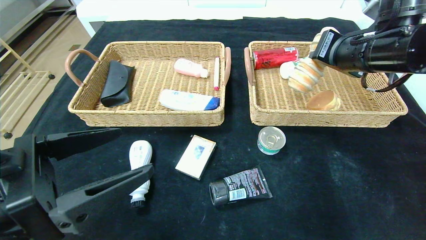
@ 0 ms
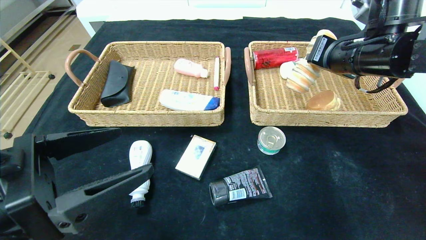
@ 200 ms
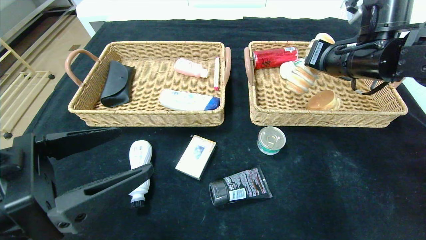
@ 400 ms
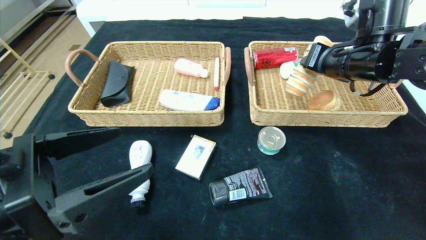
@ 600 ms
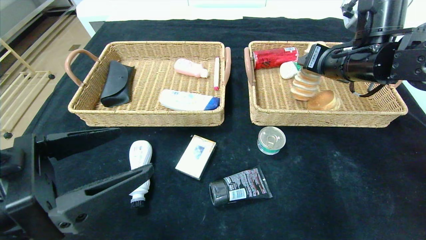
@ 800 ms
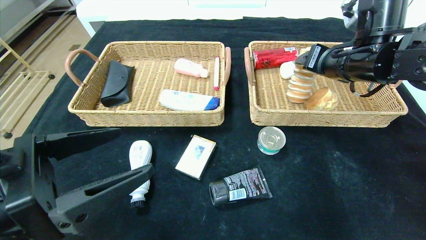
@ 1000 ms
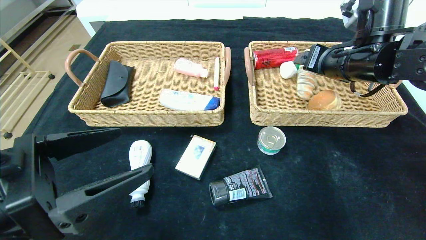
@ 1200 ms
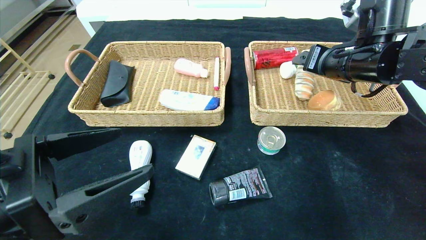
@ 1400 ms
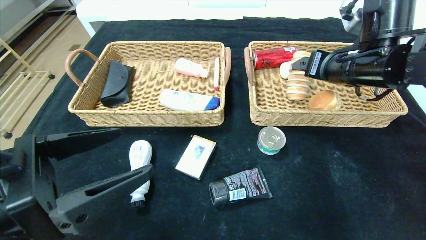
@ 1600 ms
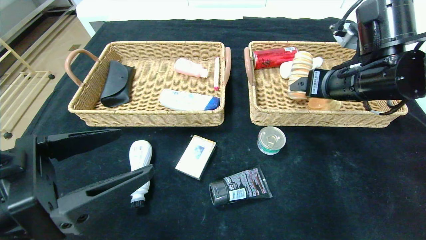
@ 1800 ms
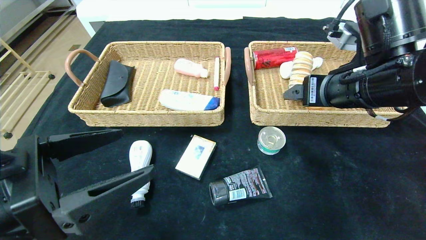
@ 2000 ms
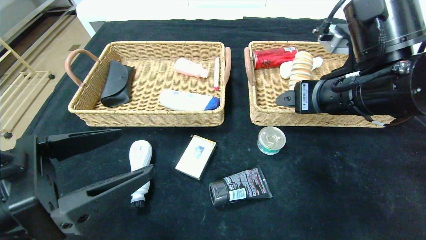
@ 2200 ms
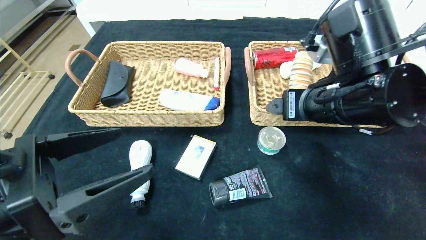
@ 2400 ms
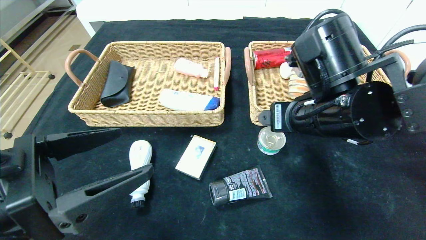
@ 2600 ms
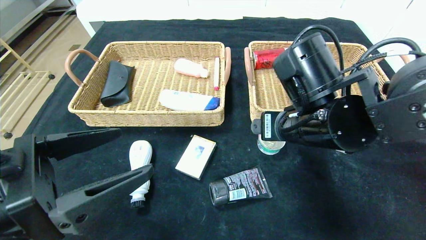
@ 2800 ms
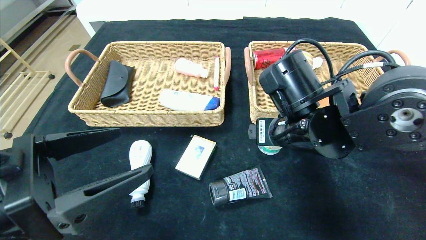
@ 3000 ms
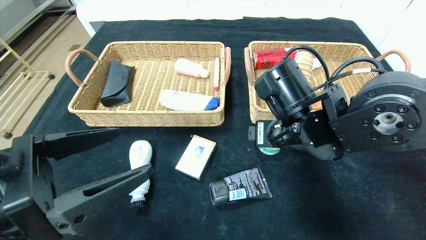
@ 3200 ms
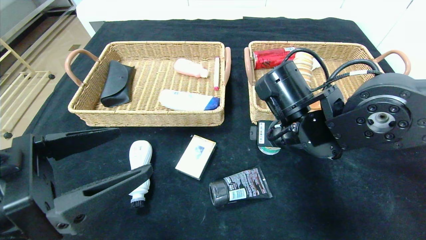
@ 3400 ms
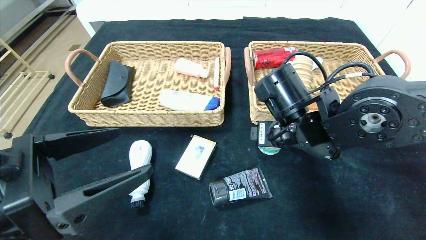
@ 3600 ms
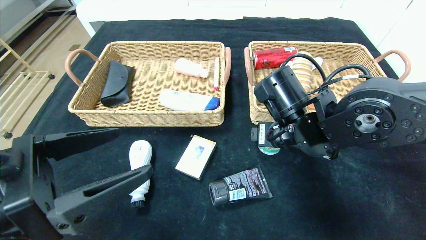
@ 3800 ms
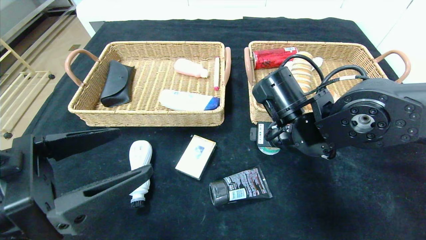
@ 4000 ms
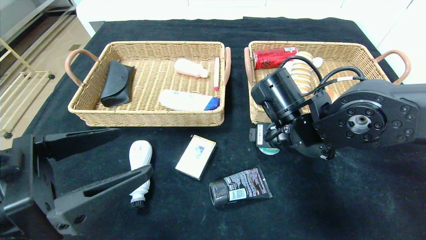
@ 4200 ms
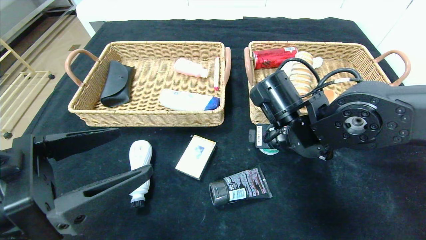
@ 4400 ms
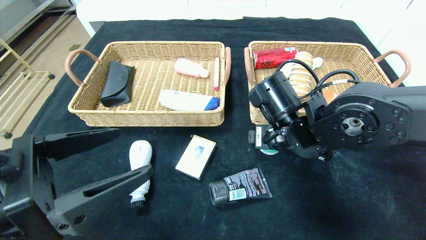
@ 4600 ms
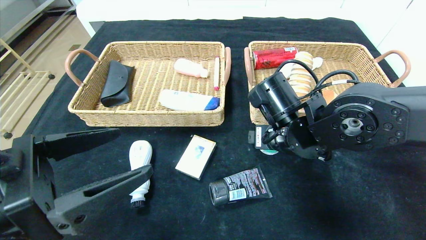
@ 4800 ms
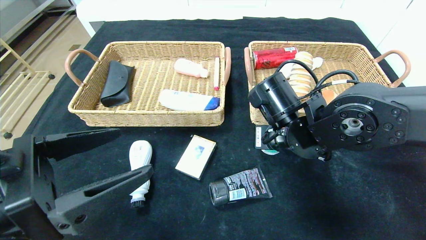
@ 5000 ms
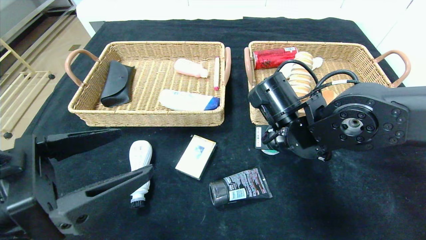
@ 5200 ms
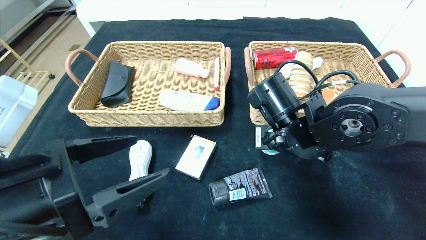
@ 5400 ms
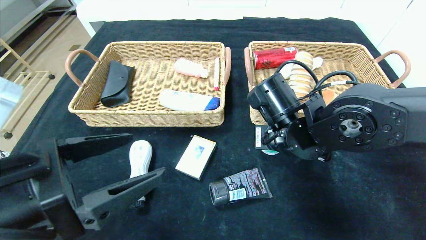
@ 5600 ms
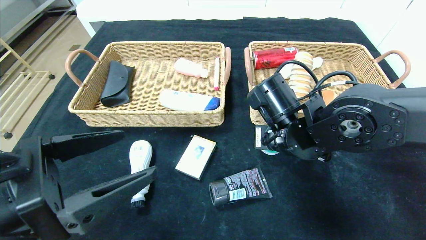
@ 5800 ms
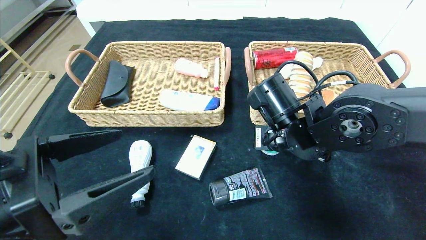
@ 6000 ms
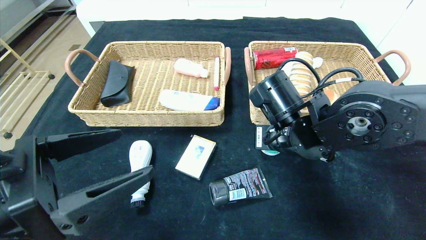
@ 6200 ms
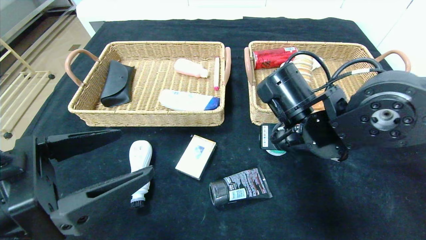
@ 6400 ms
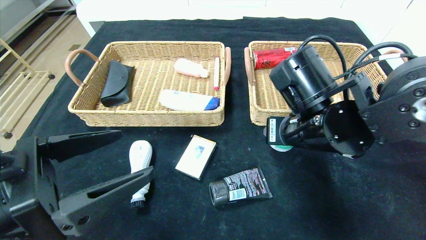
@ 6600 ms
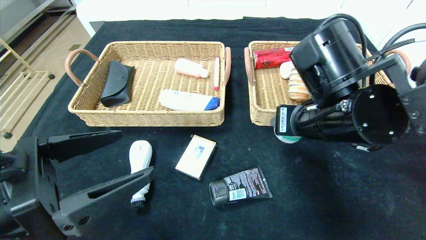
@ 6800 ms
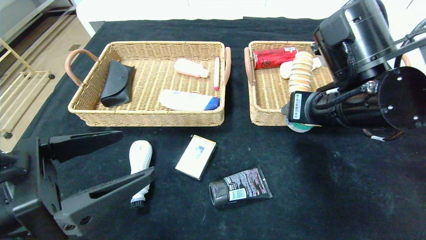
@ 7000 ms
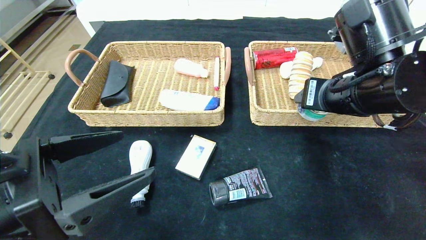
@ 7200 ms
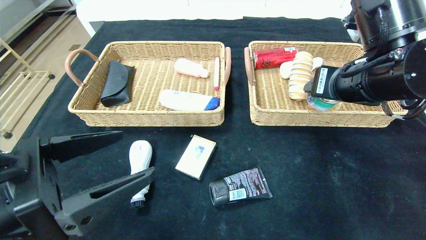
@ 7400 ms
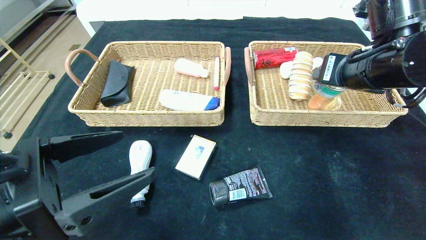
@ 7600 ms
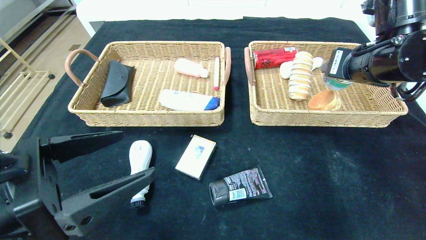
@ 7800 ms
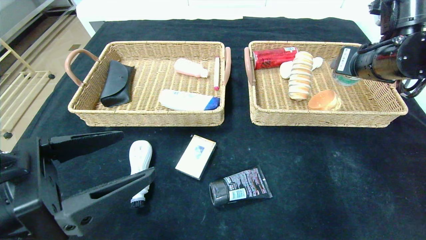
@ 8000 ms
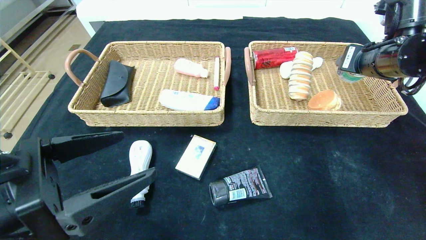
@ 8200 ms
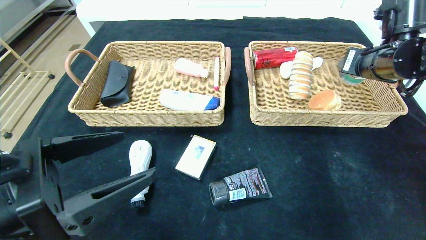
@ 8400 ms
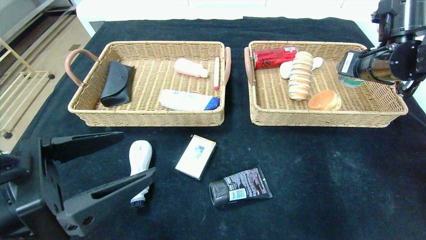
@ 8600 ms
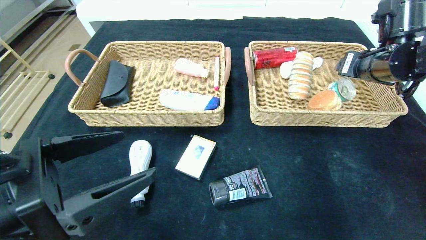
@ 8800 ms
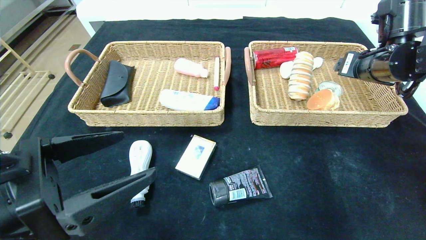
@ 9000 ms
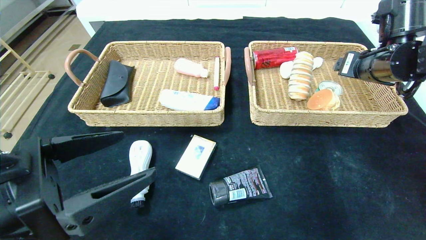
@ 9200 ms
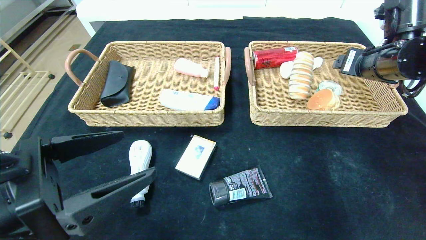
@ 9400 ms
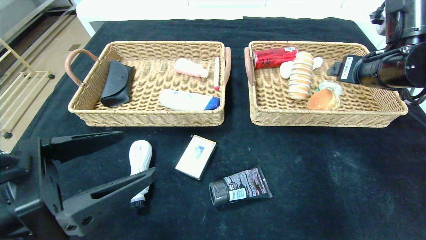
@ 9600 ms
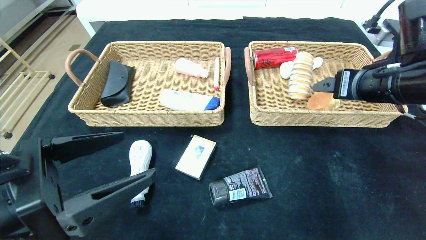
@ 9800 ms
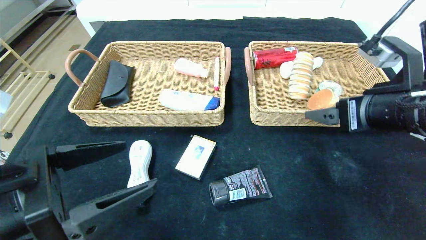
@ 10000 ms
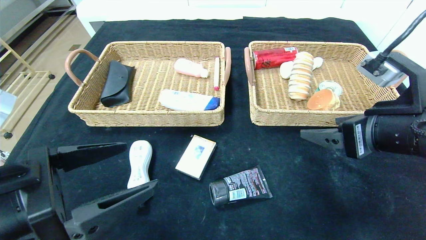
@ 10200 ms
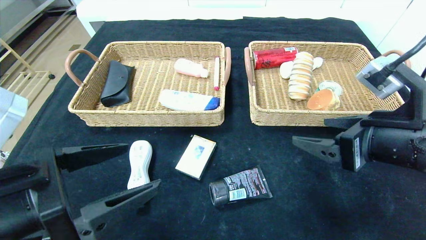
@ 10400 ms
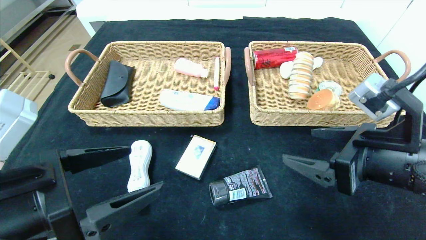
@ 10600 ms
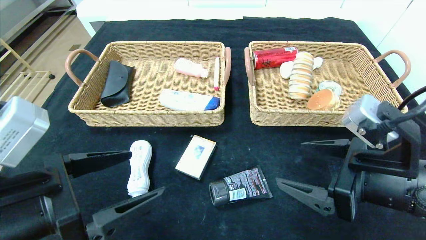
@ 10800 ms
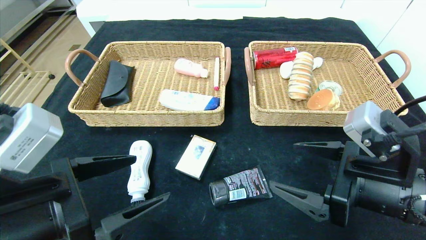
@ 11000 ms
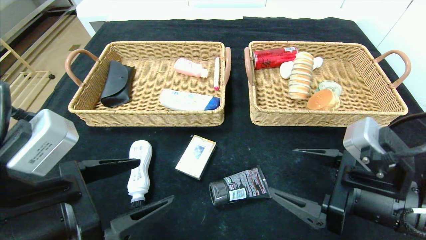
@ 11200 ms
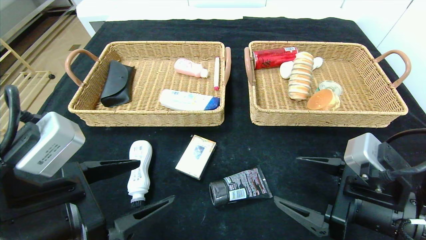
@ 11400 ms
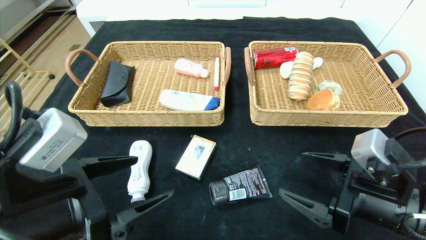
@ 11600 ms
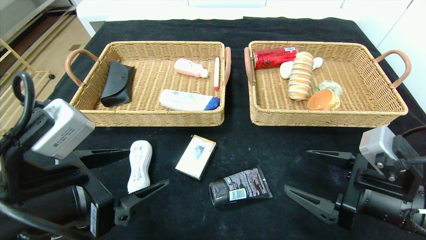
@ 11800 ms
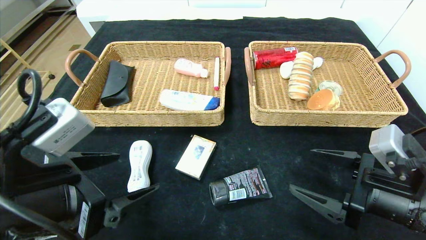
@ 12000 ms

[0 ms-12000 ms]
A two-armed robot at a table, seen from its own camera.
Step, 1400 ms to 9000 ms: Grasp the can and put it in the right basket.
0 ms to 1600 ms: The right gripper opens.
1600 ms to 3000 ms: The right gripper moves to the left, downward and backward, some 15 cm.
3000 ms to 4400 ms: There are only small adjustments of the grippers.
4400 ms to 6000 ms: The right gripper closes.
6000 ms to 7600 ms: The right gripper travels upward and to the right by about 15 cm.
7600 ms to 9000 ms: The right gripper heads to the right and forward, covering some 10 cm.
9000 ms to 10400 ms: The right gripper goes approximately 15 cm backward.
10400 ms to 12000 ms: The right gripper moves downward, roughly 10 cm.

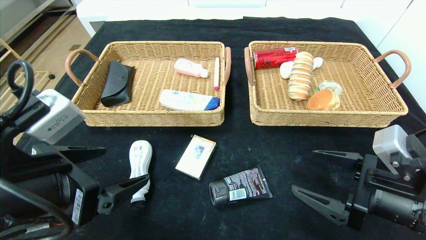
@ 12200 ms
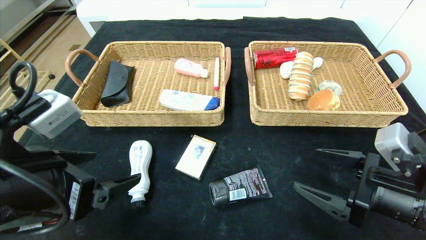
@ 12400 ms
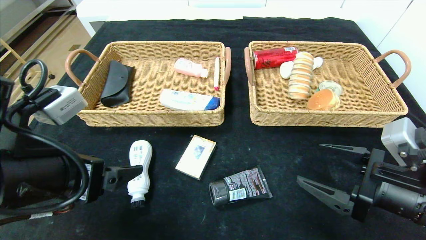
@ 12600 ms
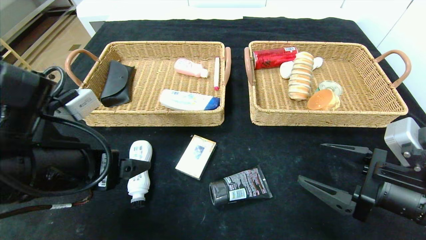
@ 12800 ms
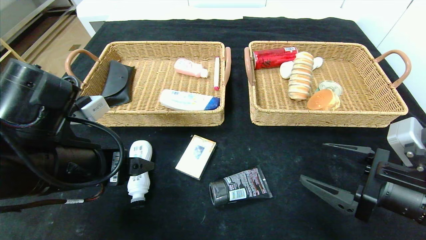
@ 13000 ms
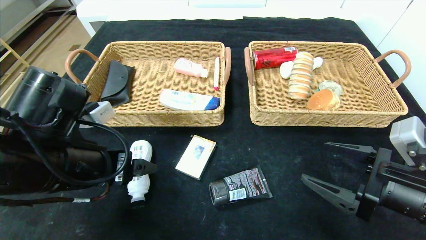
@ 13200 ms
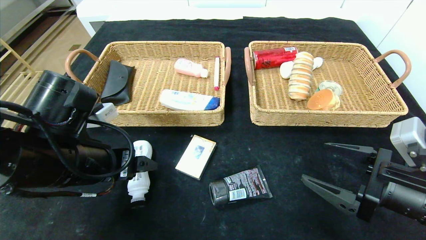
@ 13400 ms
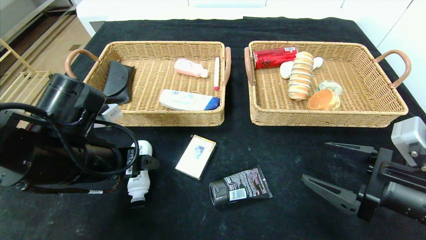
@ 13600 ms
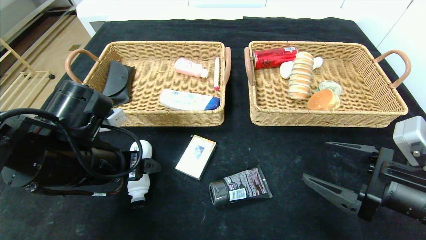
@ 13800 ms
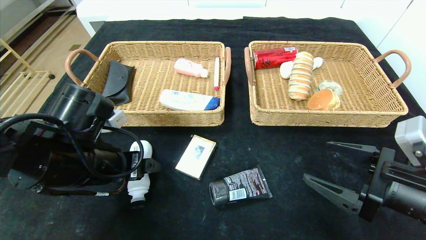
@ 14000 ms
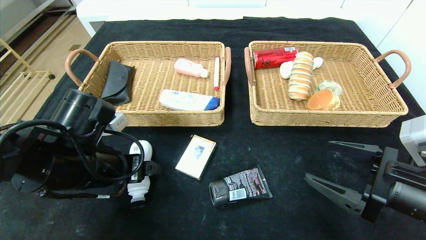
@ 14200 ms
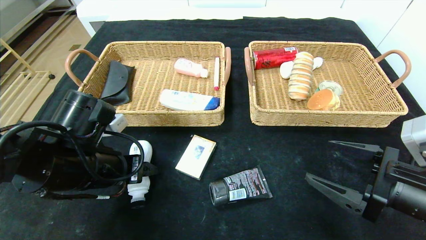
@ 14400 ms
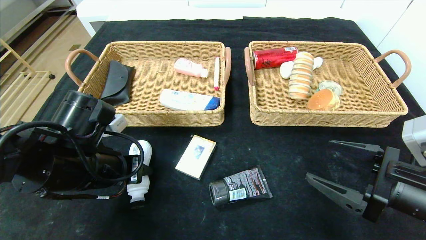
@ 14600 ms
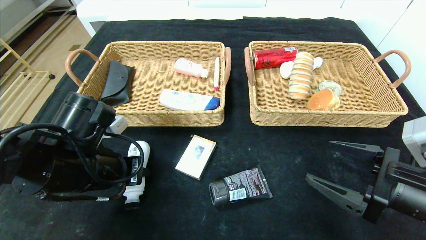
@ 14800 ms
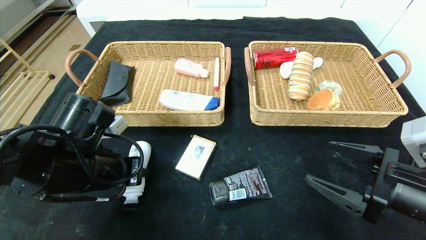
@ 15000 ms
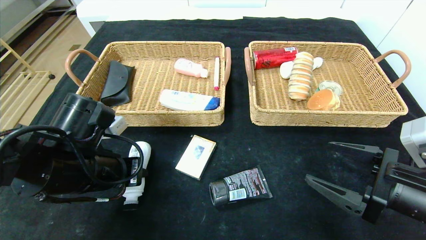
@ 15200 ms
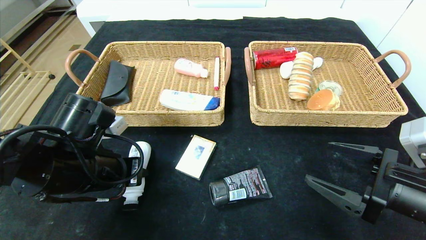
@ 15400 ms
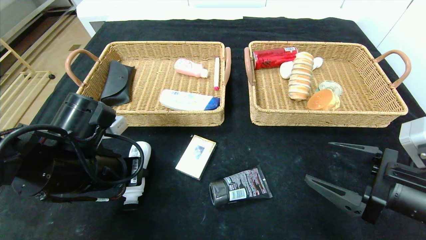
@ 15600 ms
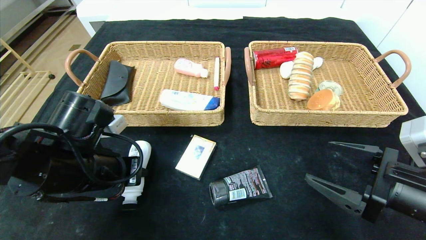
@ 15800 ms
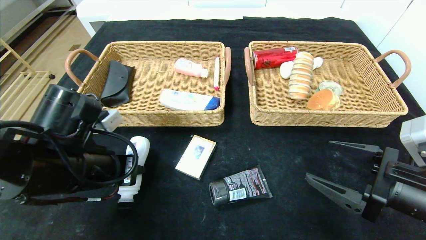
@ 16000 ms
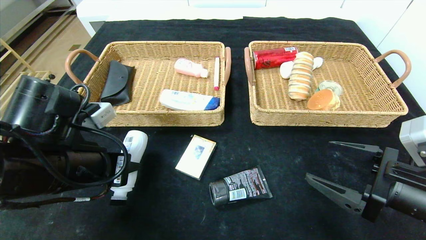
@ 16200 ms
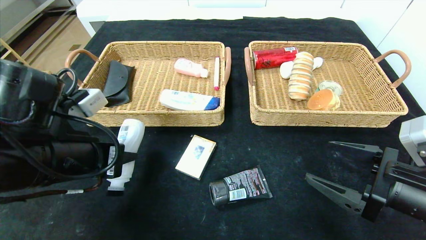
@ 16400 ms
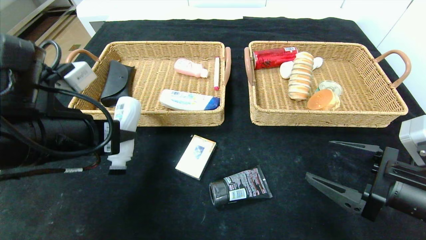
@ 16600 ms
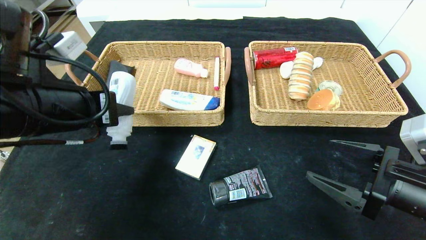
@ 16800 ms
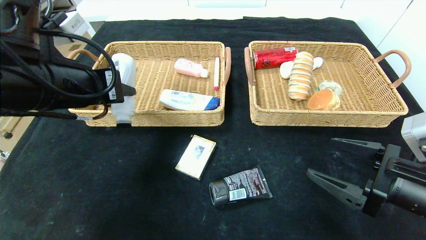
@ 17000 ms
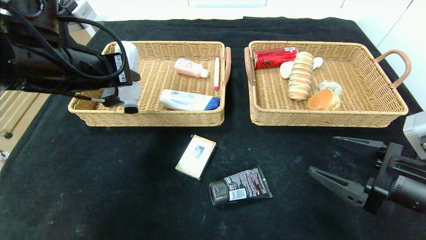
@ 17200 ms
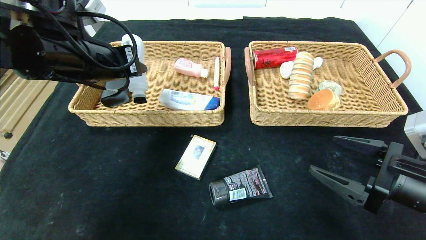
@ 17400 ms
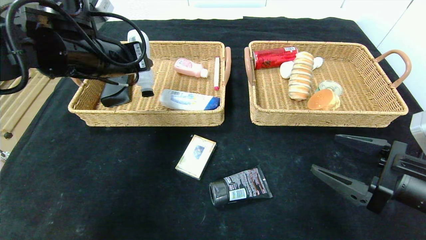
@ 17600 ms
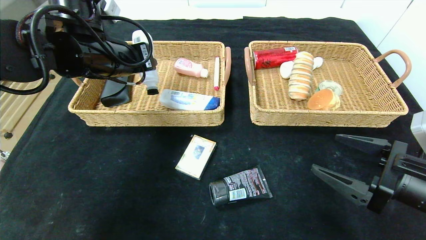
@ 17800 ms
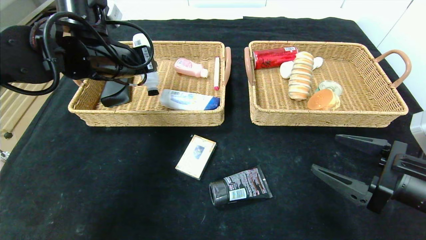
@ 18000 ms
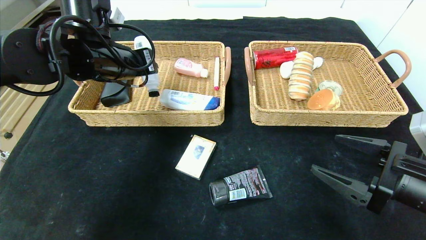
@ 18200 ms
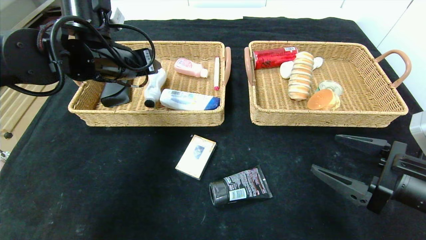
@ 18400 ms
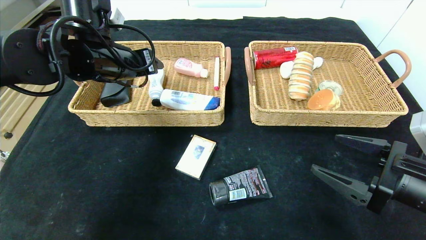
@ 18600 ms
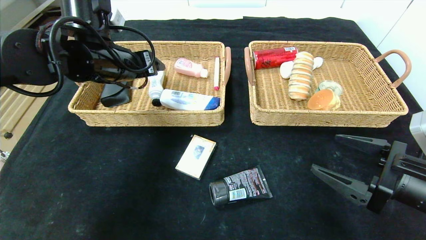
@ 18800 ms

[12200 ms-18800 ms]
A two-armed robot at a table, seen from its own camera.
Step, 12200 ms to 18400 ms: Grasp the washing liquid and put it in the left basket.
12200 ms to 13800 ms: The left gripper moves forward, roughly 10 cm.
13800 ms to 15400 ms: The left gripper closes up.
15400 ms to 17200 ms: The left gripper shifts about 15 cm upward.
17200 ms to 18800 ms: The left gripper heads forward, covering approximately 10 cm, and opens up.
